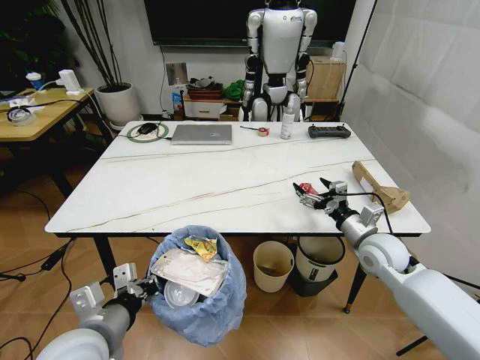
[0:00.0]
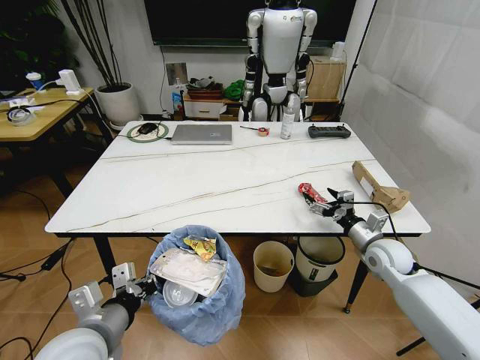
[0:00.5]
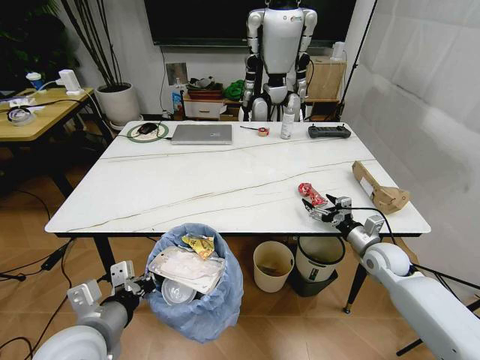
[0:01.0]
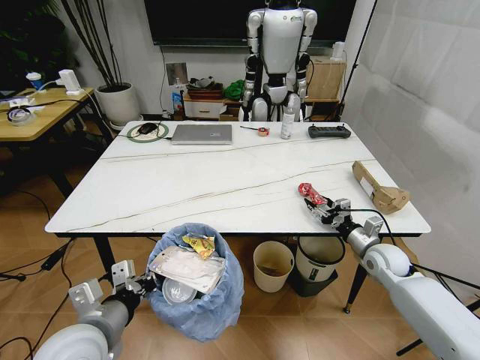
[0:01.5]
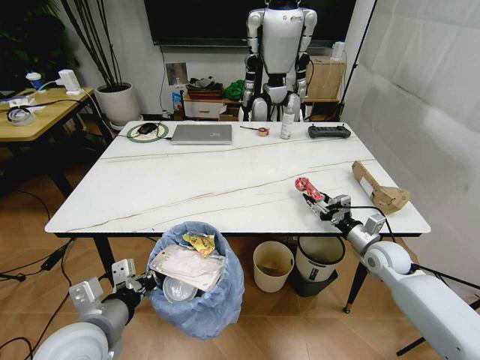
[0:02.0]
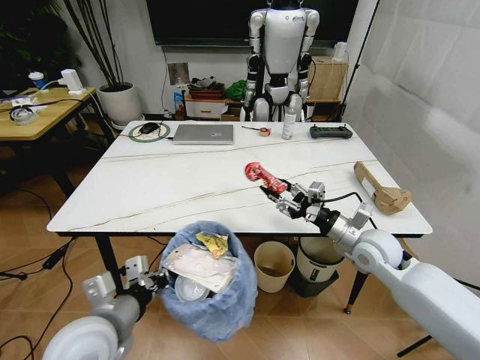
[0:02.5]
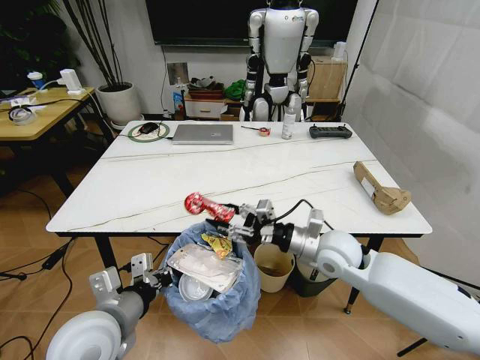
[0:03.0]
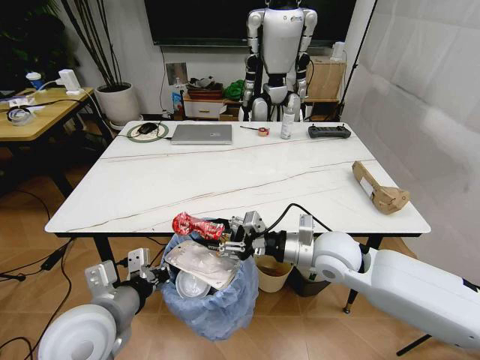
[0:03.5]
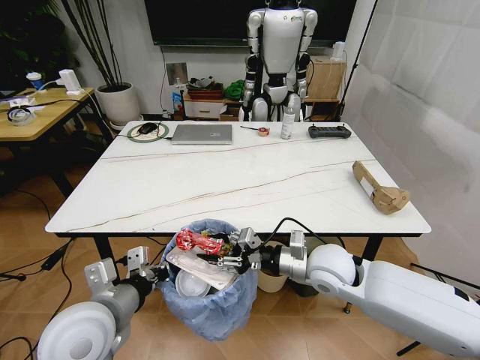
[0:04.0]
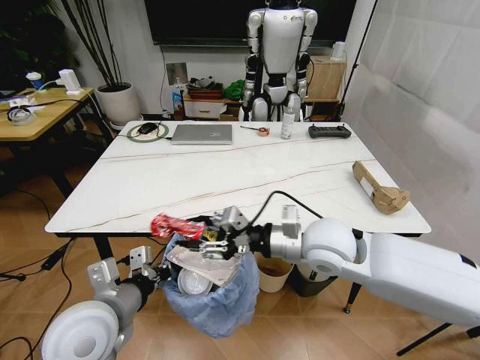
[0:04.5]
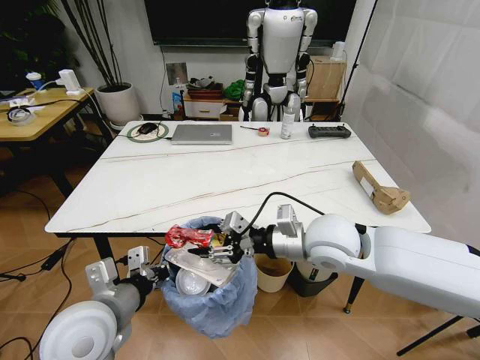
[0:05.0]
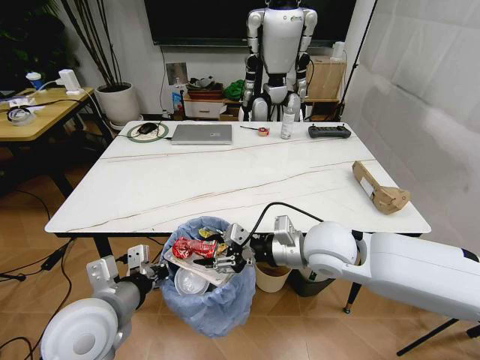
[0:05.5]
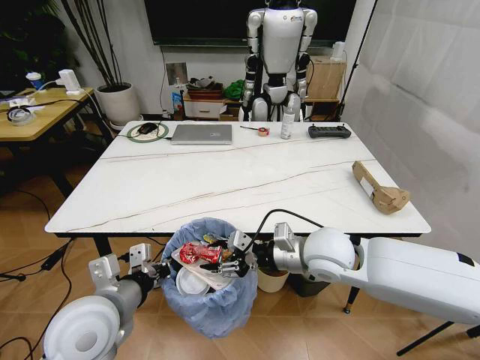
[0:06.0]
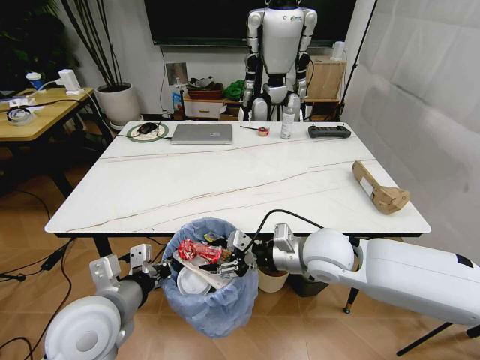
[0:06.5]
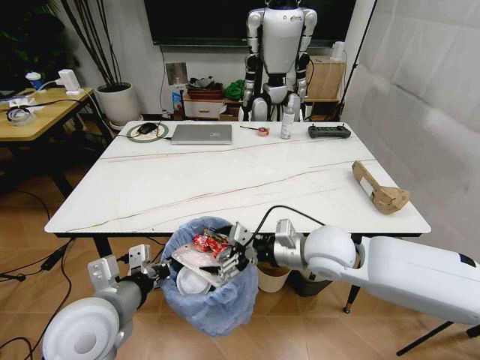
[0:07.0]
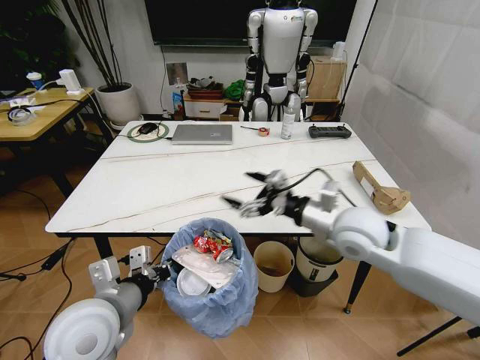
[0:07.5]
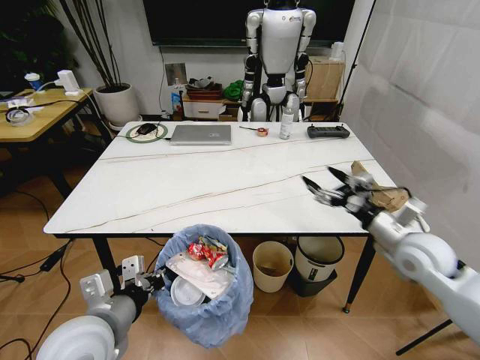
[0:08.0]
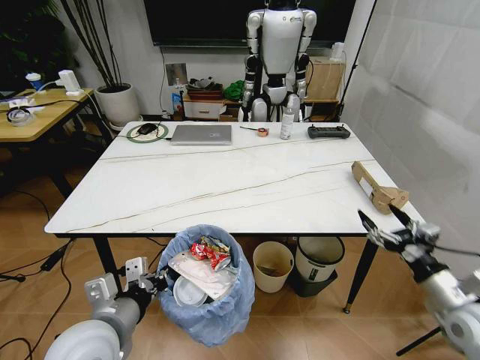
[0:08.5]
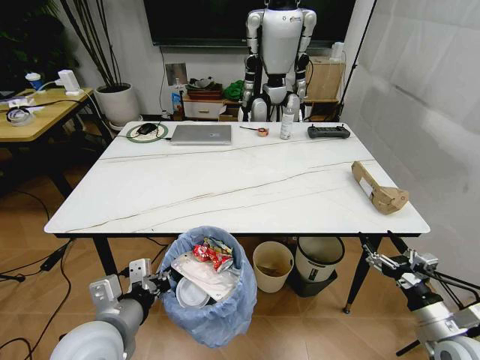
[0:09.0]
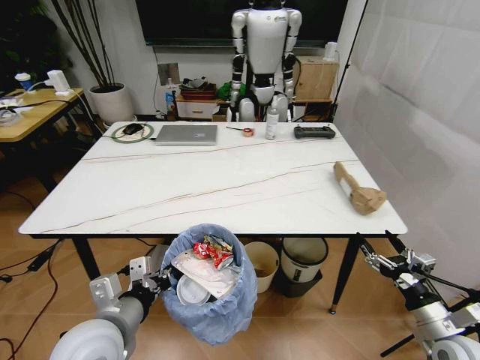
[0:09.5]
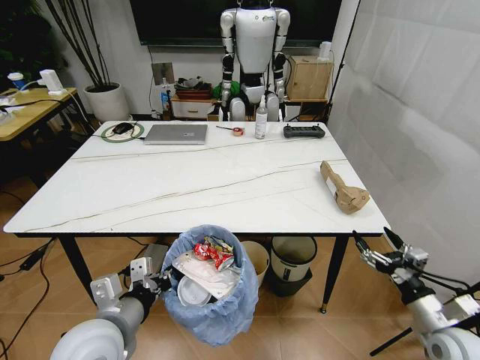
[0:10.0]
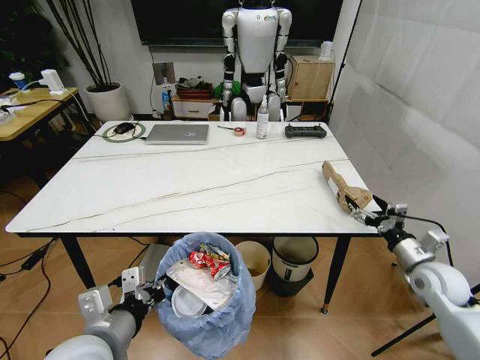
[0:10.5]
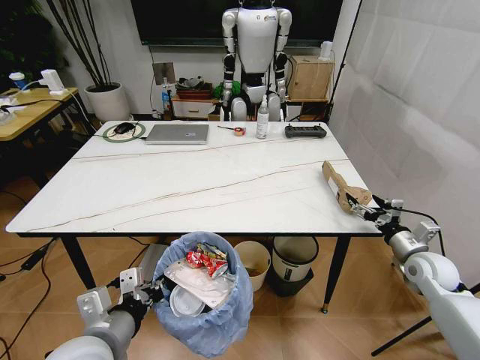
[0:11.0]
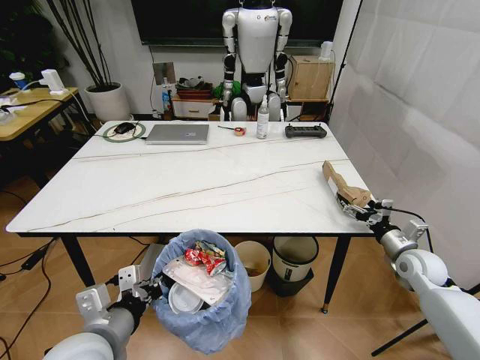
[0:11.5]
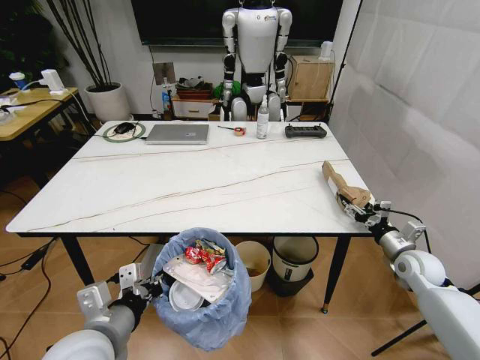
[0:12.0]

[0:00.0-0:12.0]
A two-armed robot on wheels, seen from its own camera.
Task of the whole recording: Pick up the trash bin and place the trash from the table into it.
0:00.0 to 0:02.0: The right gripper is displaced downward and to the right by about 10 cm, and closes its fingers.
0:02.0 to 0:04.0: The right gripper travels to the left and upward by roughly 20 cm.
0:06.0 to 0:08.0: The right gripper shifts some 20 cm to the right, and opens.
0:08.0 to 0:10.0: The right gripper goes some 20 cm backward, downward and to the right.
0:10.0 to 0:12.0: The right gripper moves forward, about 20 cm.

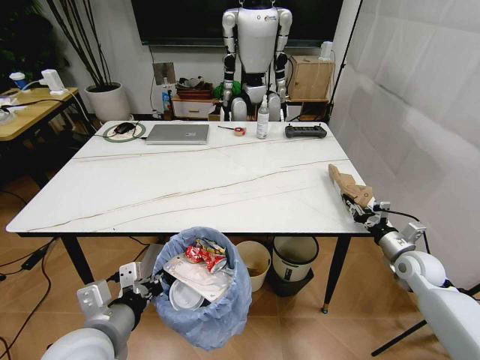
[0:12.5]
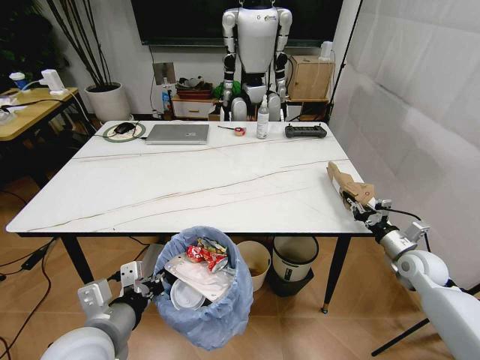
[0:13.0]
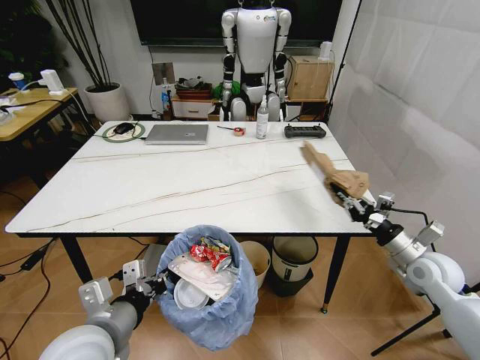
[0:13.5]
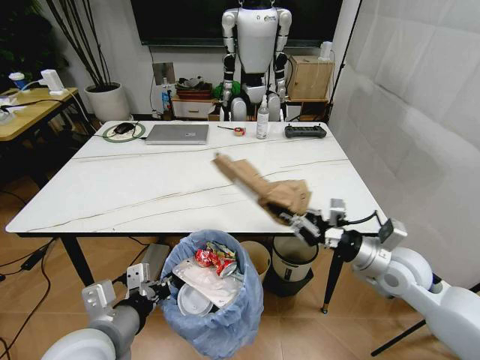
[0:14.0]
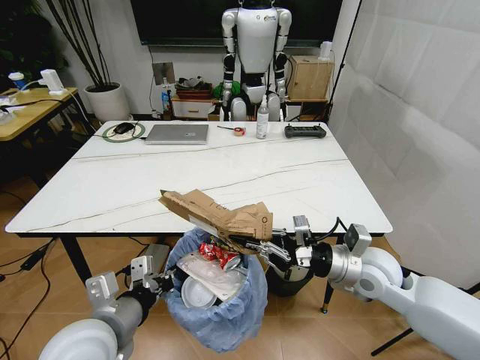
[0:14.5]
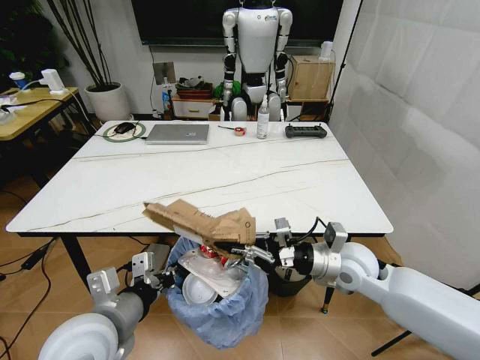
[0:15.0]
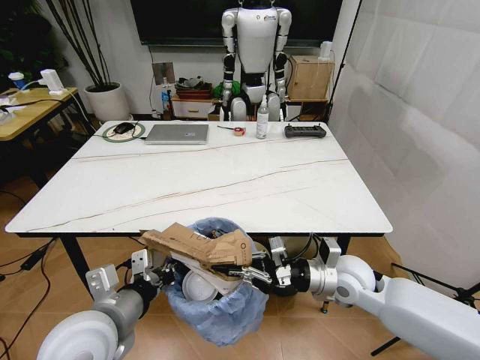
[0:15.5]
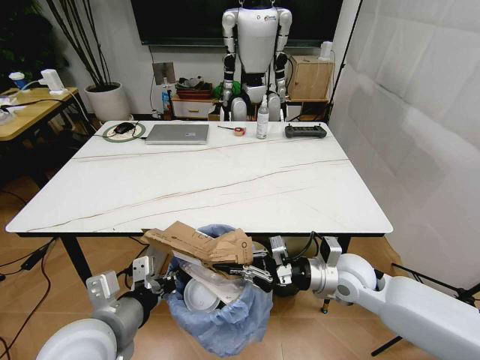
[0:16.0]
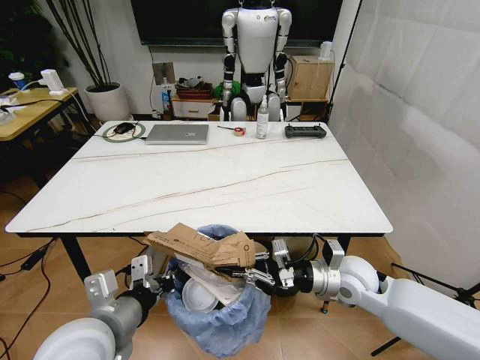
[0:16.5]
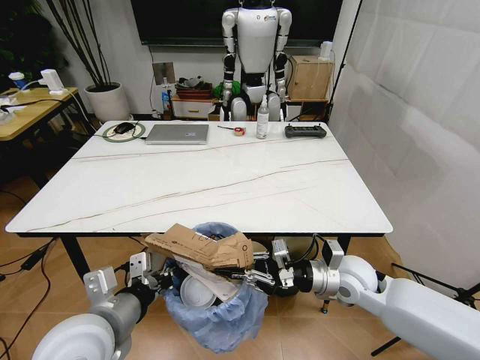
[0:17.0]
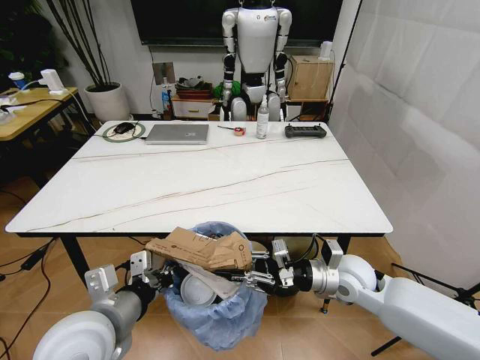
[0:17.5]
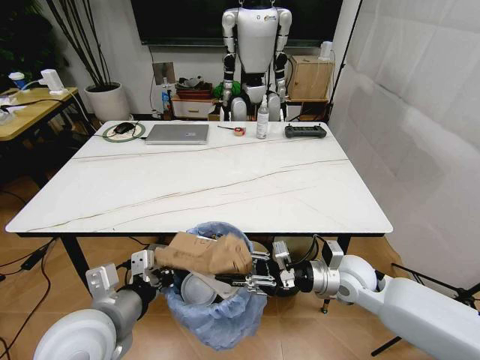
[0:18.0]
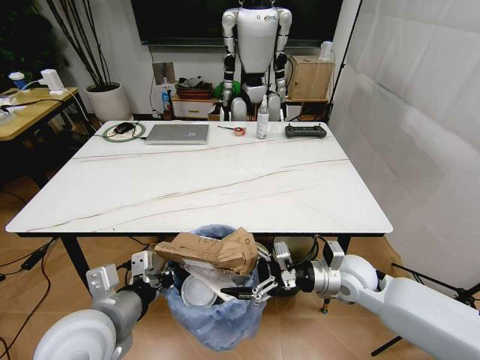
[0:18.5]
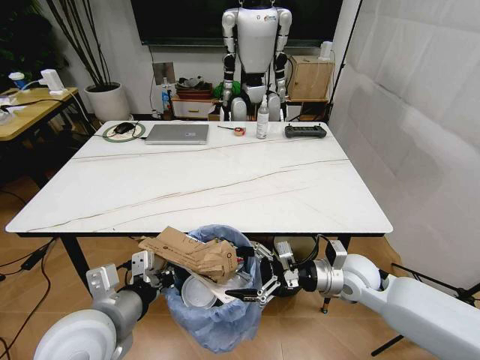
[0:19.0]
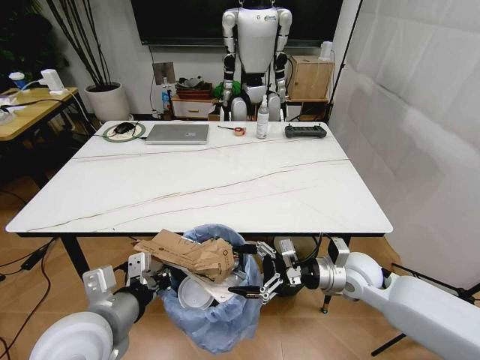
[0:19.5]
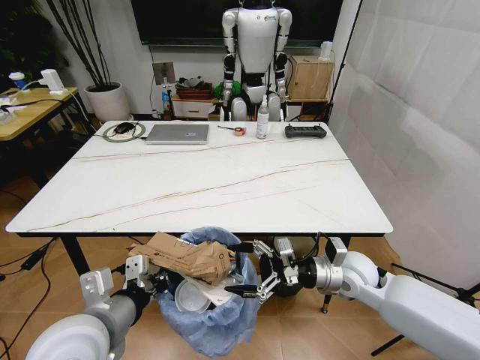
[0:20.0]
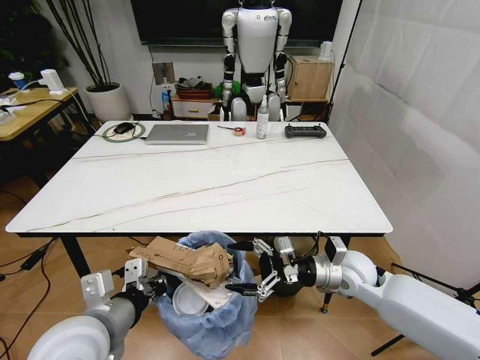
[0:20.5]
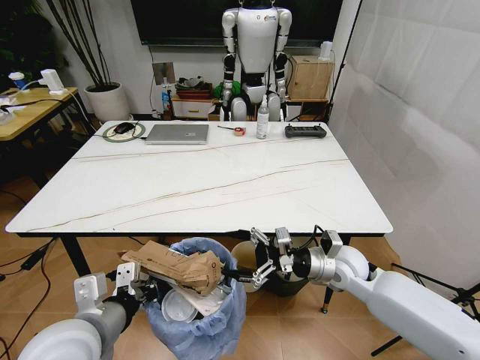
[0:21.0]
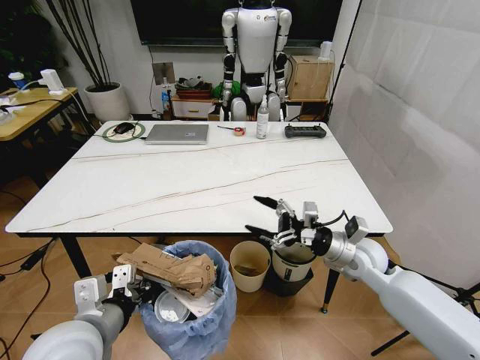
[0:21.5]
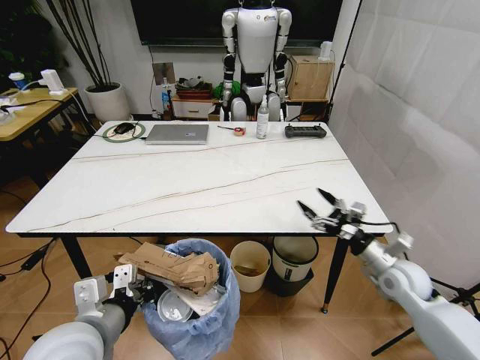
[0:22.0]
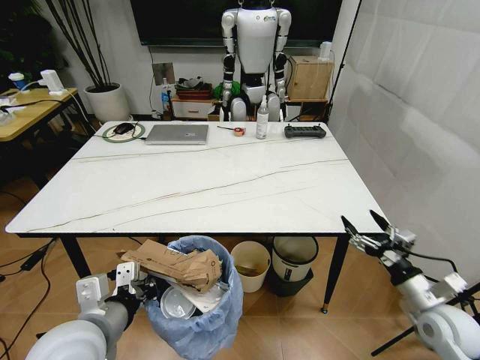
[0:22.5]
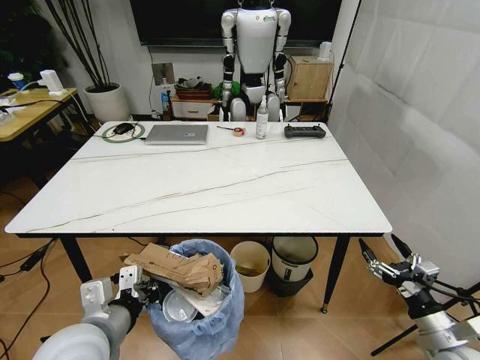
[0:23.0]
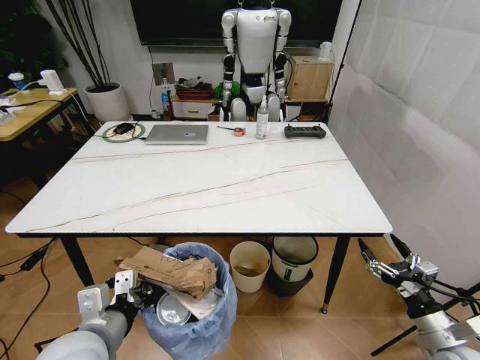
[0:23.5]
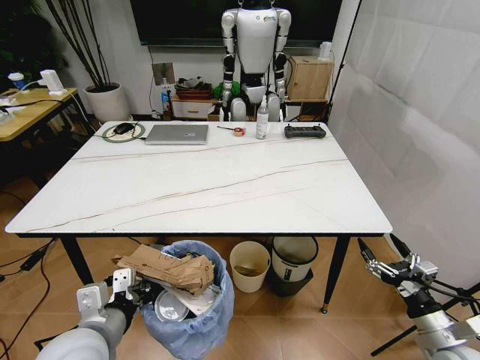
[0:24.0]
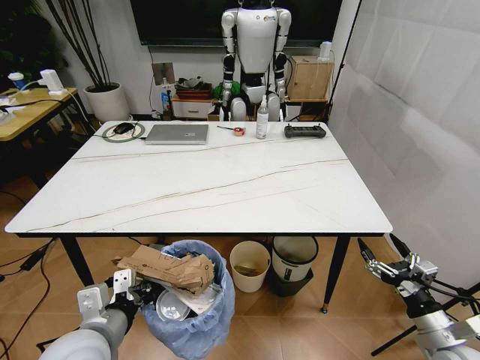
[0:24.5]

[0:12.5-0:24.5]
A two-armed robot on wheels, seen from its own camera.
Task of the whole recording: Pick up the trash bin and place the trash from the table into it.
0:12.5 to 0:14.5: The right gripper is displaced to the left and upward by approximately 20 cm.
0:14.5 to 0:16.5: The right gripper shifts by about 5 cm.
0:16.5 to 0:18.5: The right gripper opens.
0:18.5 to 0:20.5: There are only small adjustments of the grippers.
0:20.5 to 0:22.5: The right gripper shifts about 20 cm to the right and backward.
0:22.5 to 0:24.5: The right gripper goes about 5 cm backward.

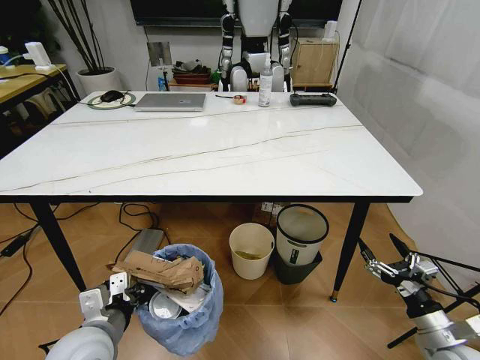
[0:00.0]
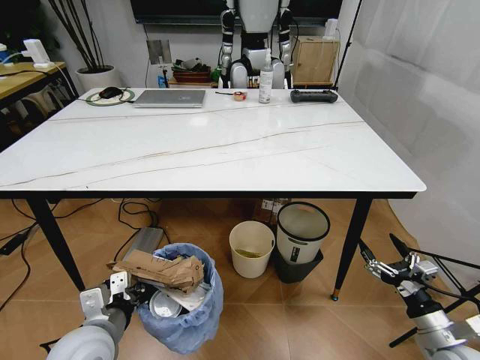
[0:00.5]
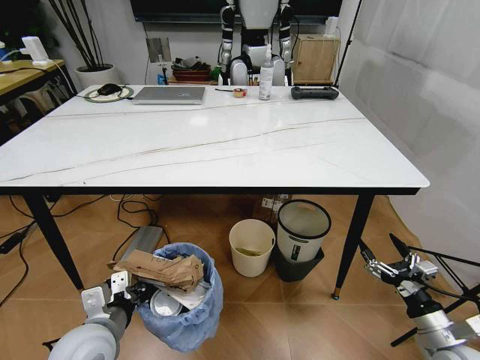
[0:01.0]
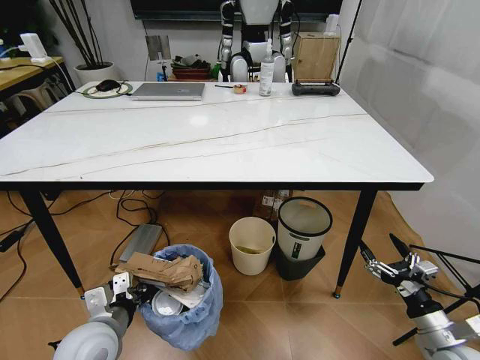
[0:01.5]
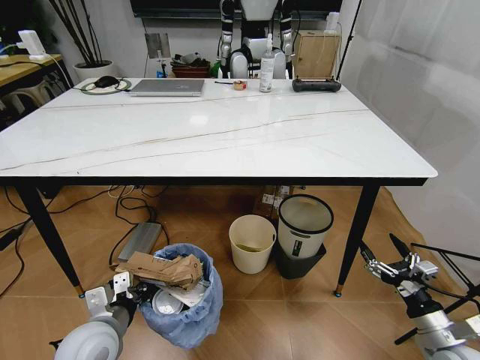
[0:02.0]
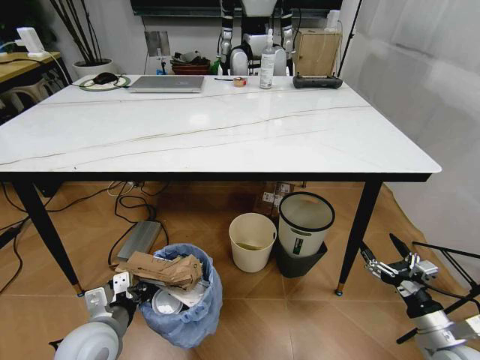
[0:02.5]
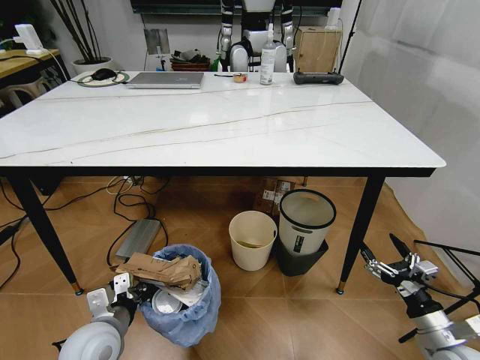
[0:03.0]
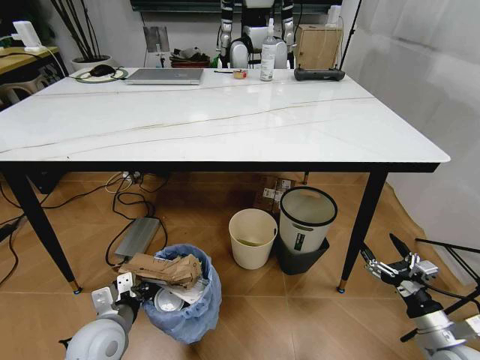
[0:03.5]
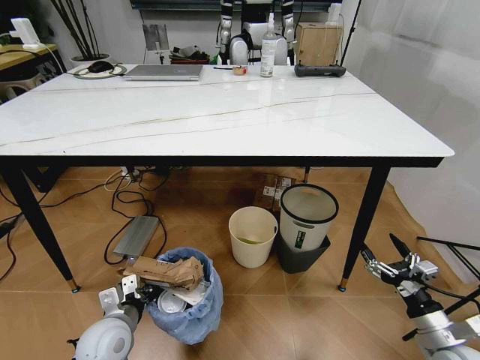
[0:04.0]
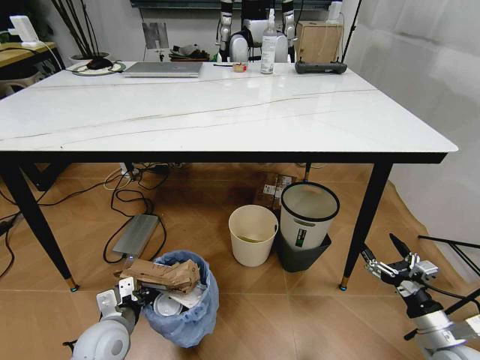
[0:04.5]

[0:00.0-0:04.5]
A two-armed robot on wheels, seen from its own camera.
Task of the whole recording: Pick up the trash bin and place the trash from the table into it.
0:02.0 to 0:04.5: The left gripper shifts roughly 5 cm downward.
